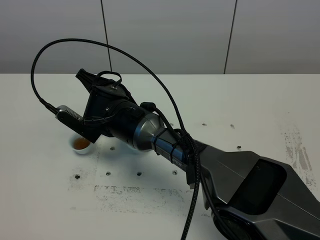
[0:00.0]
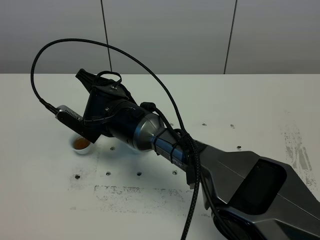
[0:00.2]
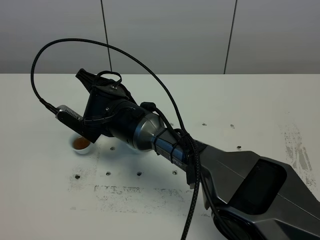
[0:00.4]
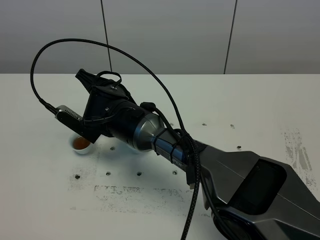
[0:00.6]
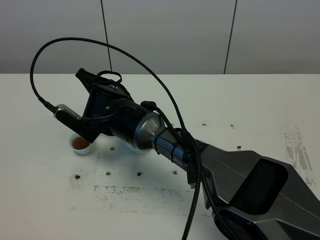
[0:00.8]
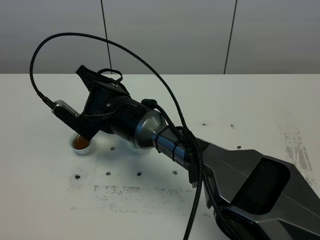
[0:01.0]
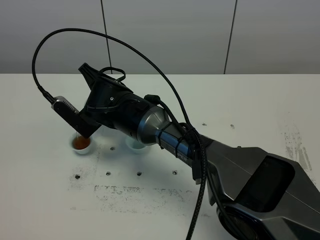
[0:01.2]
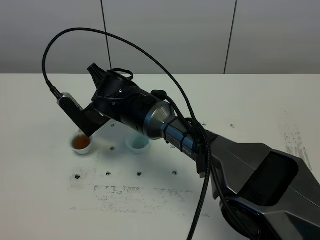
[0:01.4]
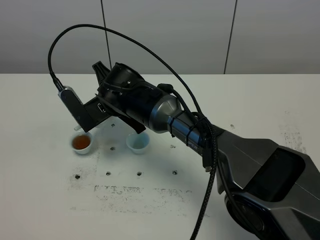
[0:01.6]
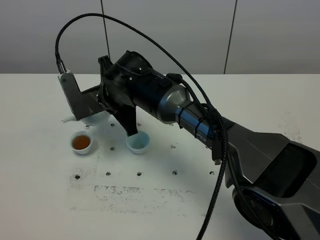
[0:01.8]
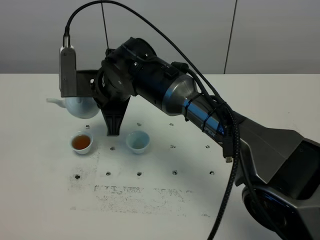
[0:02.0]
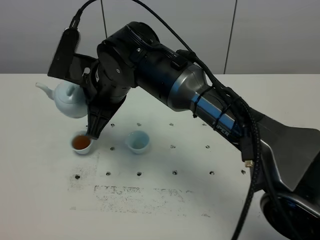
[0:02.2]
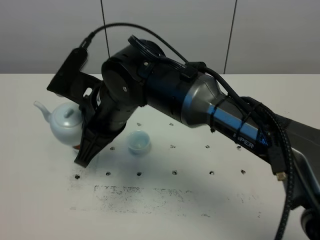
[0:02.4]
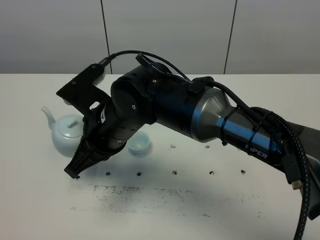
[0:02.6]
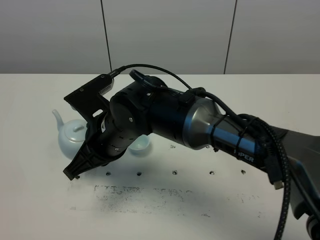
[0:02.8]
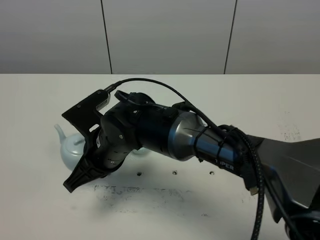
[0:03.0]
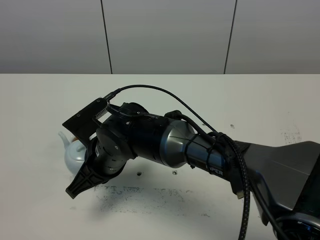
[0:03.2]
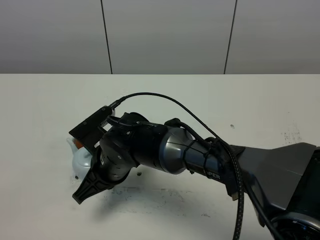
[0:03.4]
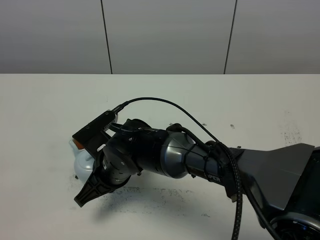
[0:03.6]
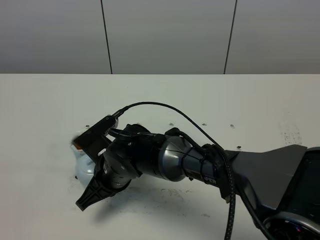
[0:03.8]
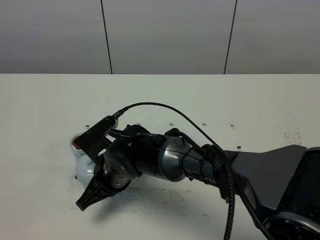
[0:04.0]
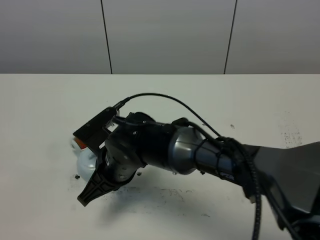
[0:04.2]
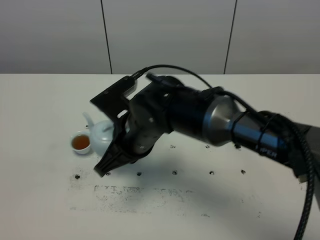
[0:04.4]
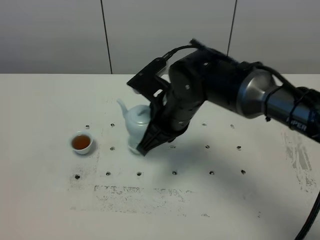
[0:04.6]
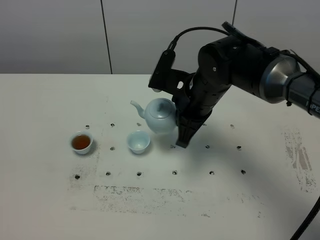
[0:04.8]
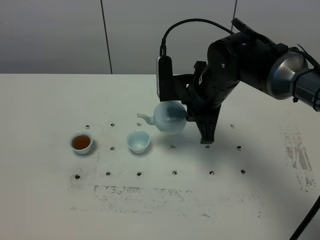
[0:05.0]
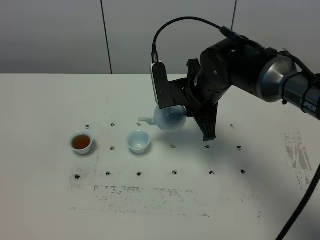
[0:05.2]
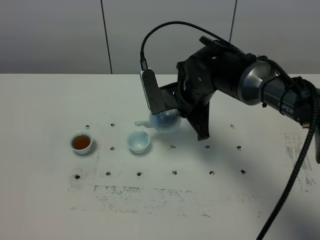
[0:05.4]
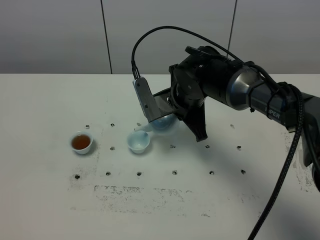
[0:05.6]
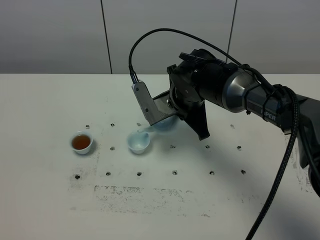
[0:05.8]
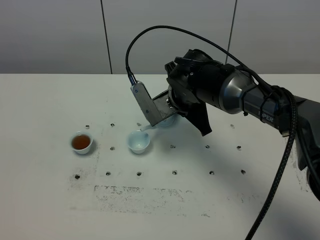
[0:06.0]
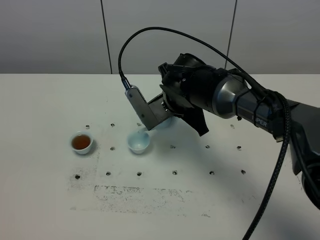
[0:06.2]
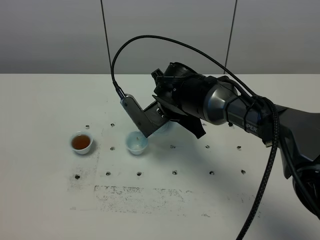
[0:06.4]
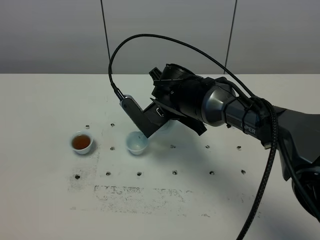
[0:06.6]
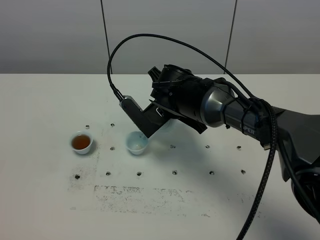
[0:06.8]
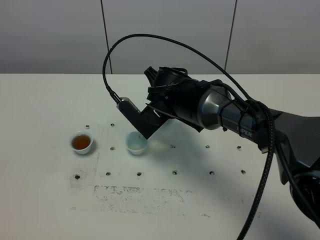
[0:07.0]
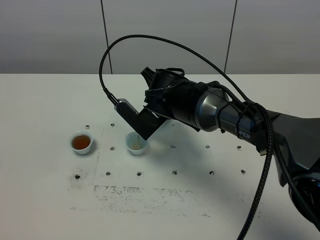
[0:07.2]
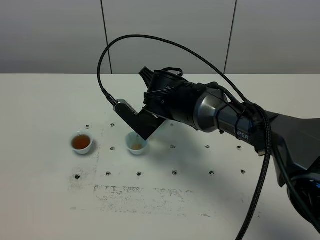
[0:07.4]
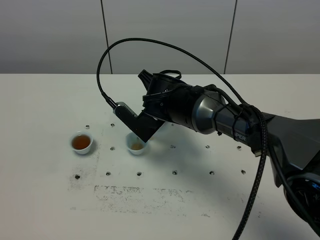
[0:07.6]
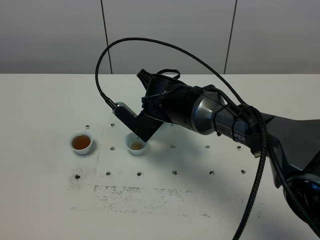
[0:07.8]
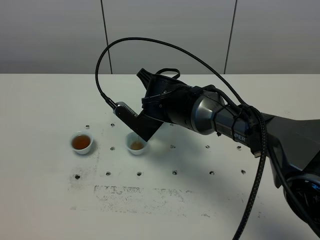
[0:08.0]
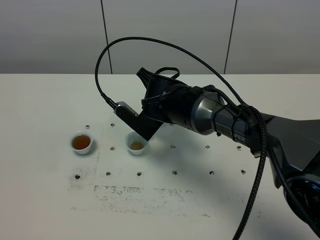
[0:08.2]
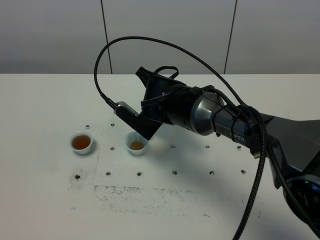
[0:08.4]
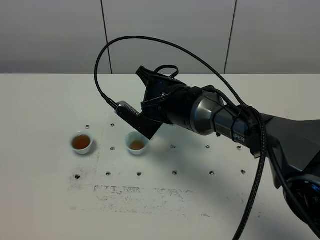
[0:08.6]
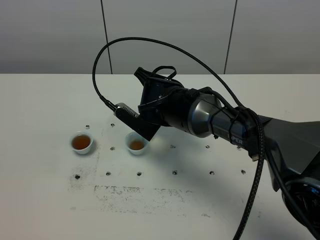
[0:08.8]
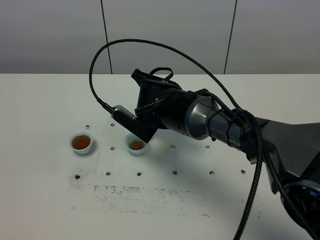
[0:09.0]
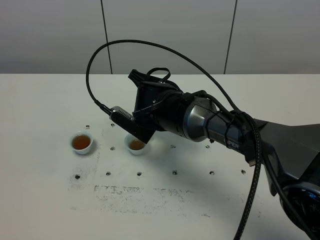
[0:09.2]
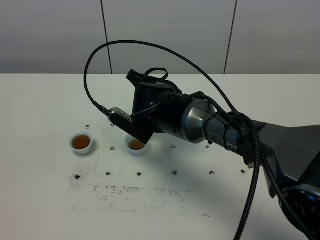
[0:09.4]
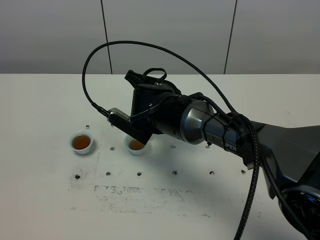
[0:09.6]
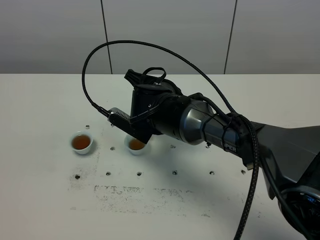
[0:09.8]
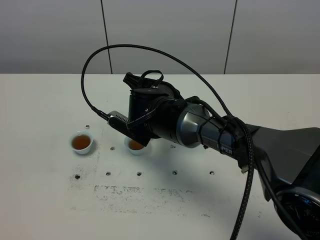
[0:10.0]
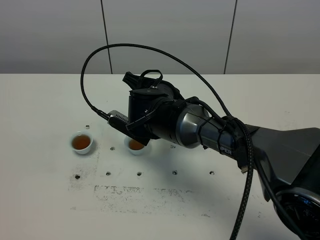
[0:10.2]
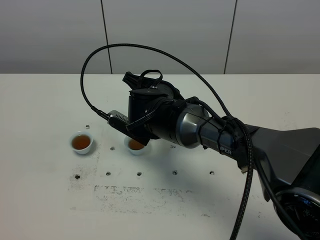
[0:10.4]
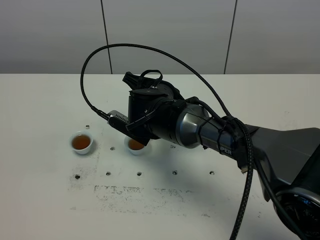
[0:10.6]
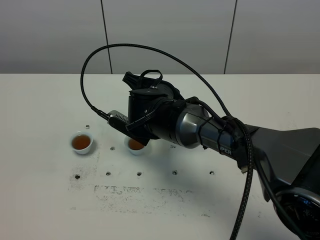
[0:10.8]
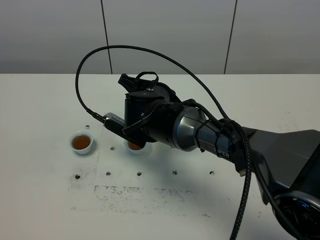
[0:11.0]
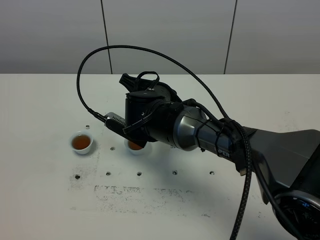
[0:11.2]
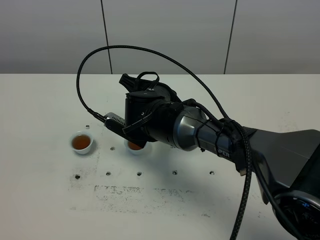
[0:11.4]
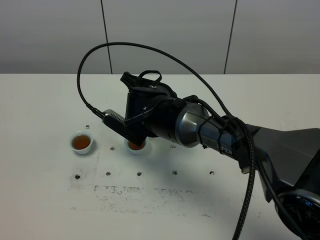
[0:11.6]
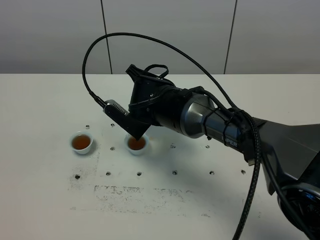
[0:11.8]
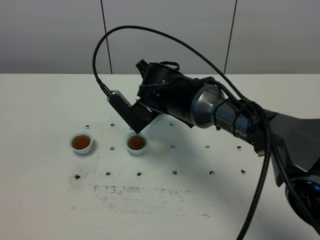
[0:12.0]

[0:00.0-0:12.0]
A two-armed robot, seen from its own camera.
Task of the whole recording: grasp the blue porcelain teapot and pour the tea into the two blue porcelain teacups one by one, put the blue porcelain teapot back in its original place.
Step, 0:01.8 to 0:12.0: Pour tea into the teacup with the right gripper.
0:01.6 to 0:03.0: The right gripper moves backward, some 10 cm.
0:03.0 to 0:04.4: The right gripper travels to the right by roughly 5 cm, and goes downward and returns, about 5 cm each way.
0:04.4 to 0:06.0: The right gripper travels forward and to the right by roughly 10 cm.
0:07.6 to 0:10.4: The grippers stay close to where they were, moving slightly.

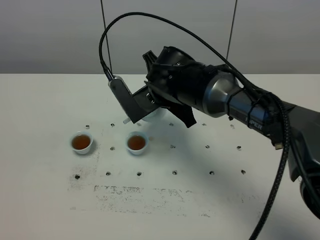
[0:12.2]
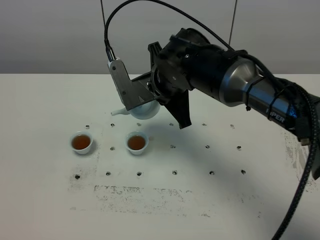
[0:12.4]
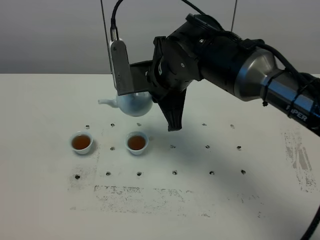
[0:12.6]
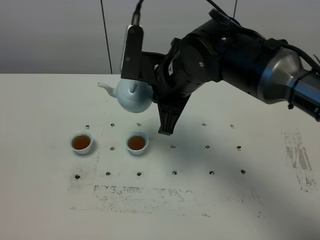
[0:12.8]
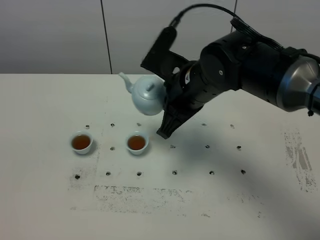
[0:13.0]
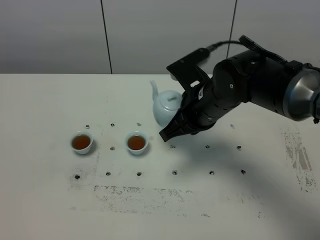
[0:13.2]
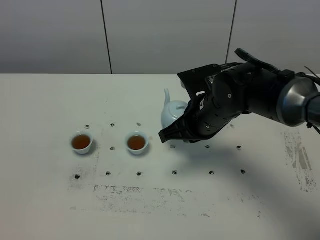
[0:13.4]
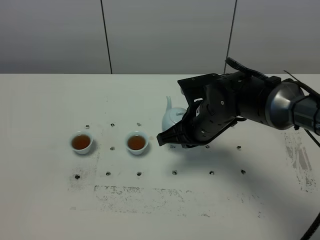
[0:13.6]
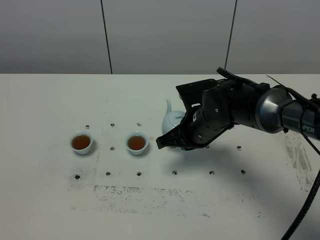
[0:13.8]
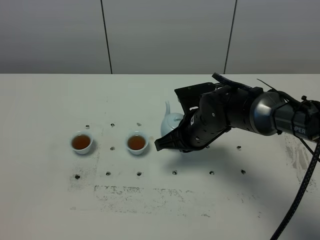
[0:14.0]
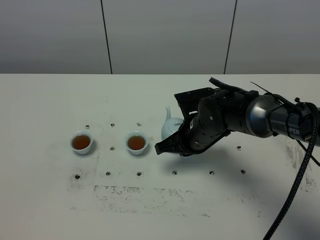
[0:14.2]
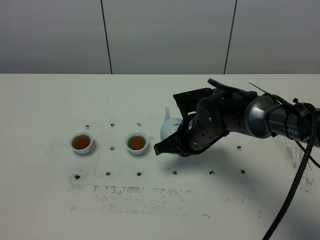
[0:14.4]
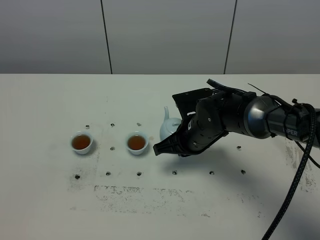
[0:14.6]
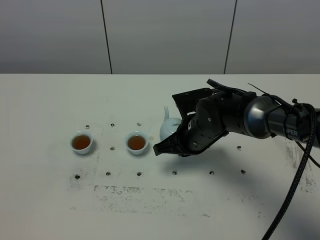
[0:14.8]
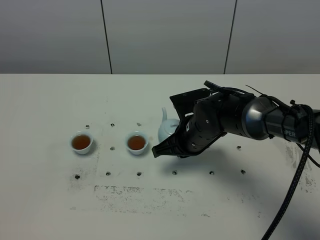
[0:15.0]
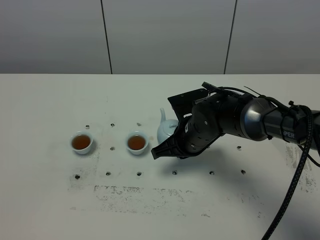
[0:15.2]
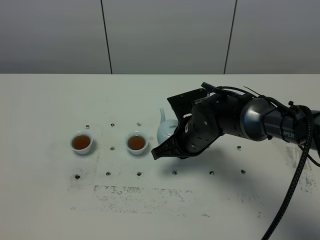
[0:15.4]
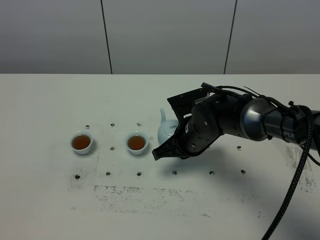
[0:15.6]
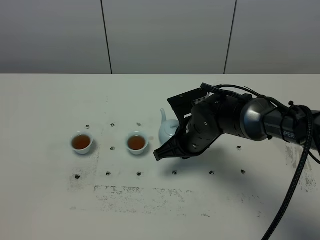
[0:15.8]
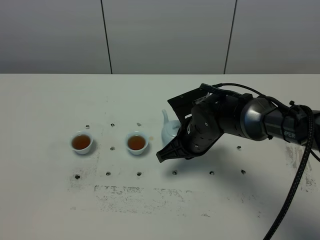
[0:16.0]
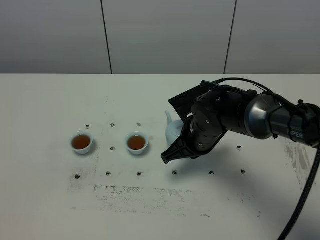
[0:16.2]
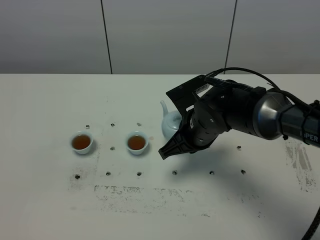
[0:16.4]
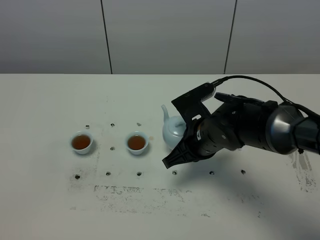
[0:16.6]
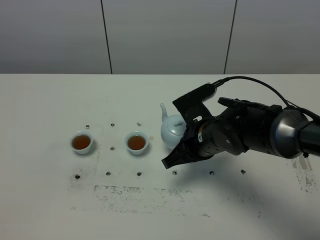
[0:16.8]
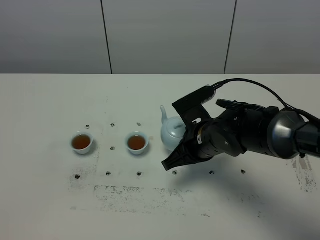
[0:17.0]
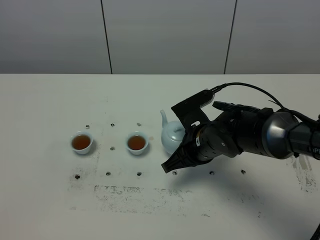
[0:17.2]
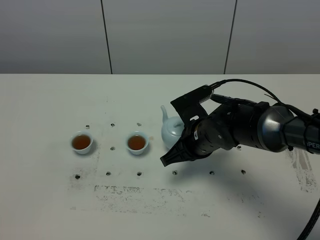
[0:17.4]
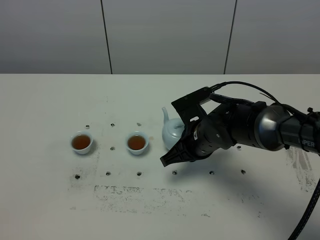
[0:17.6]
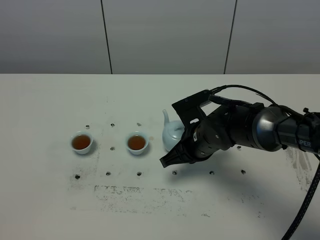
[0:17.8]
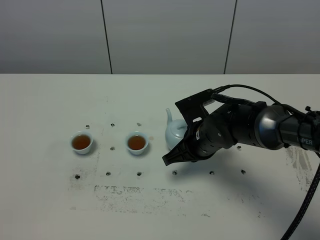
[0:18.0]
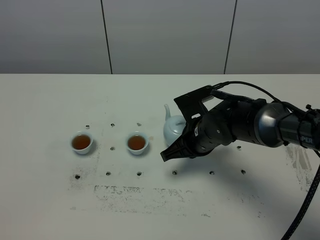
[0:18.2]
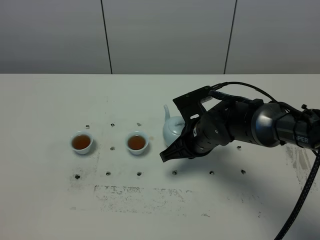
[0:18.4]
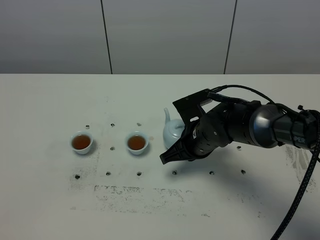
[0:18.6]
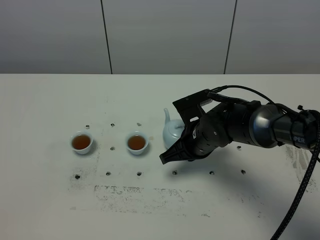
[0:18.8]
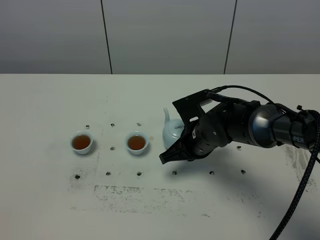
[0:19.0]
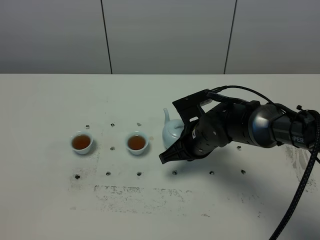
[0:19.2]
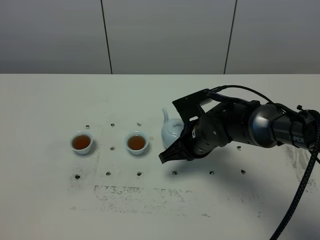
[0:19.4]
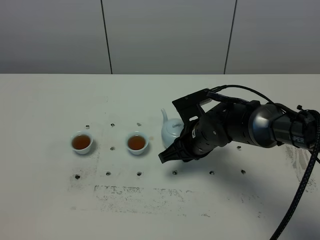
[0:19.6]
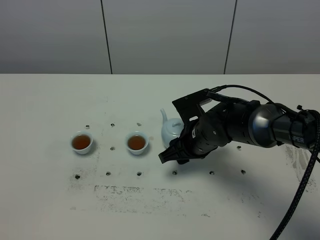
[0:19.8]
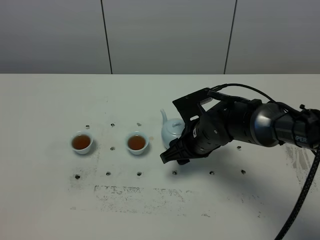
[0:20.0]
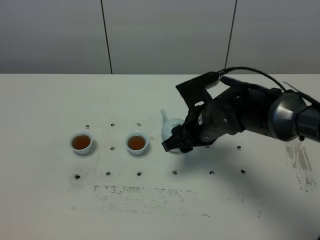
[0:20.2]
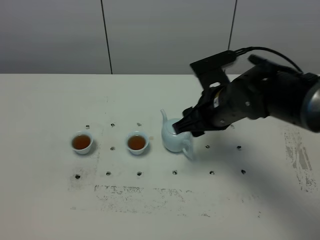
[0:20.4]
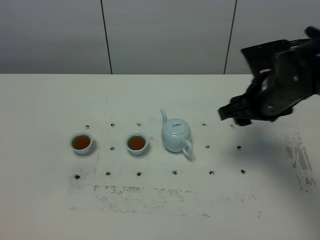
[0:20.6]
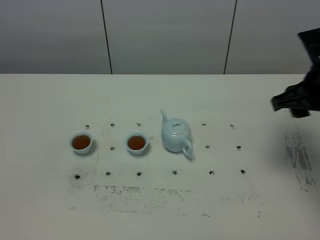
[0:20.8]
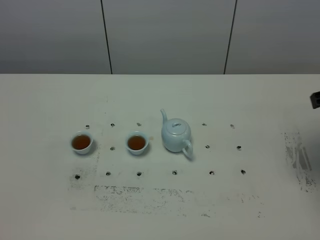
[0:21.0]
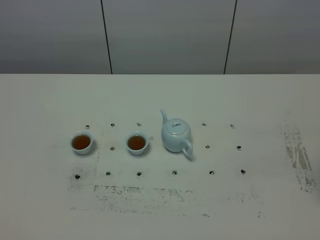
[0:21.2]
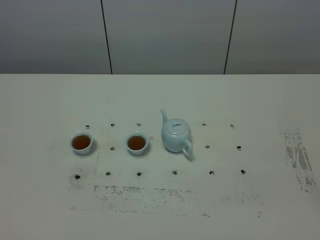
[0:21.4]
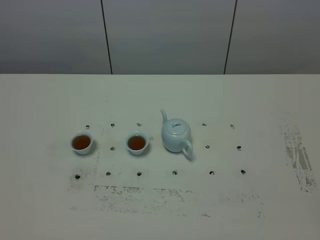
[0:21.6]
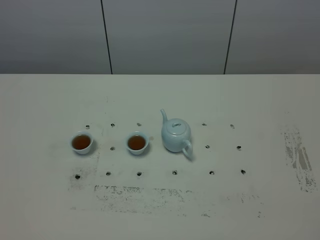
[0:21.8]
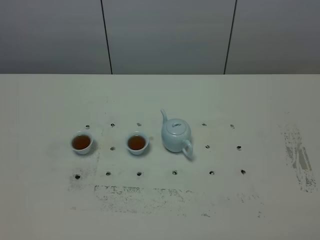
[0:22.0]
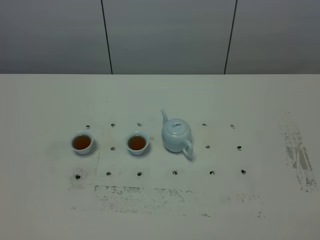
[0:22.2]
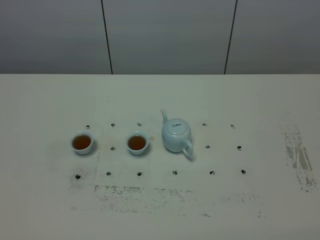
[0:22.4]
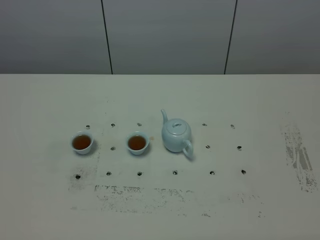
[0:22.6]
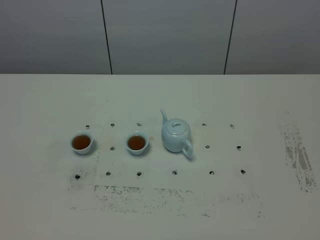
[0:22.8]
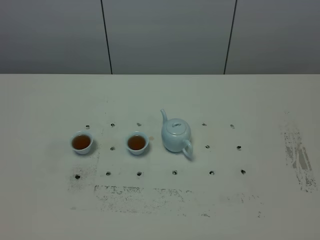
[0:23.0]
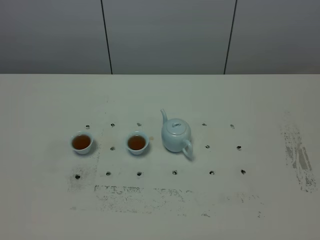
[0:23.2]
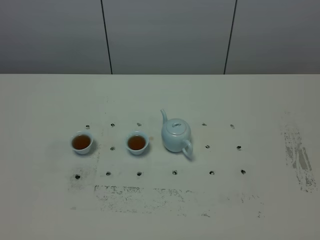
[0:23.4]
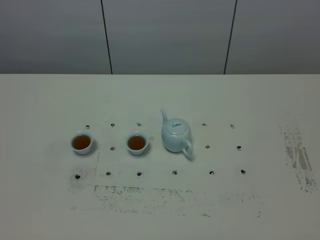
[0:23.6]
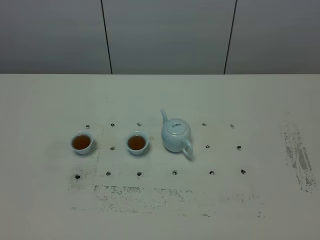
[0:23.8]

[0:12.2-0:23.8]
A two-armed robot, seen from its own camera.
Task of the whole recording: grasp the blue porcelain teapot and pour the tea into the two blue porcelain teacups one by one, put the blue porcelain teapot back in its original place.
0:12.2 to 0:13.6: The right gripper heads to the right, covering approximately 5 cm.
0:13.6 to 0:18.0: The grippers stay close to where they were, moving slightly.
0:18.0 to 0:19.4: The two grippers keep their place.
0:19.4 to 0:21.0: The right gripper goes approximately 30 cm to the right and upward, and opens its fingers.
0:21.0 to 0:22.4: The right gripper is displaced backward by roughly 25 cm.
